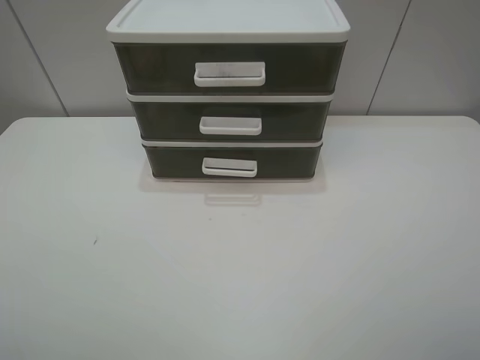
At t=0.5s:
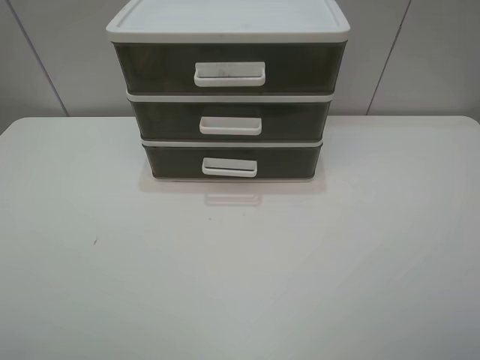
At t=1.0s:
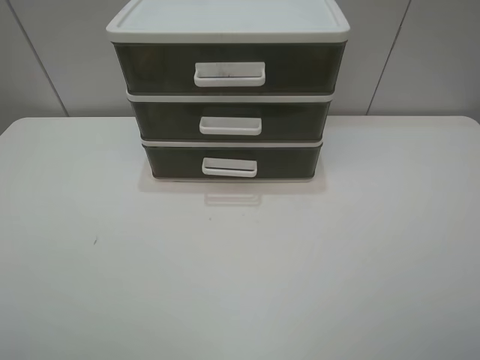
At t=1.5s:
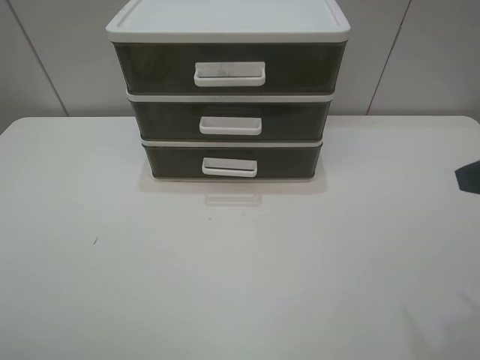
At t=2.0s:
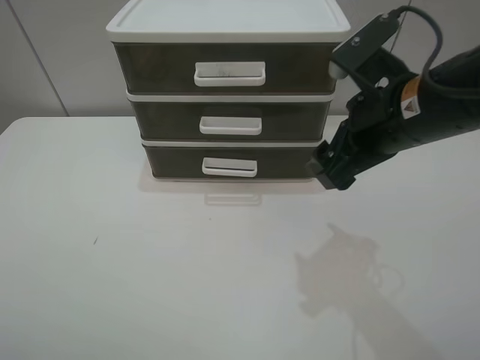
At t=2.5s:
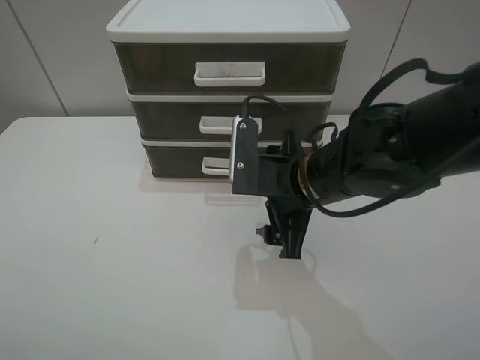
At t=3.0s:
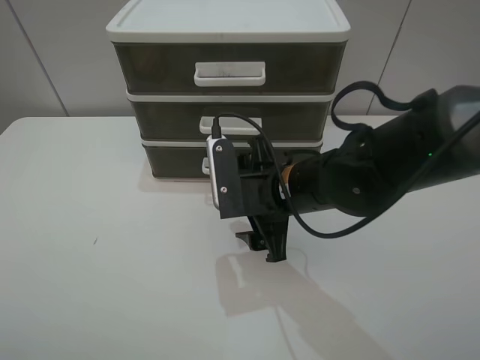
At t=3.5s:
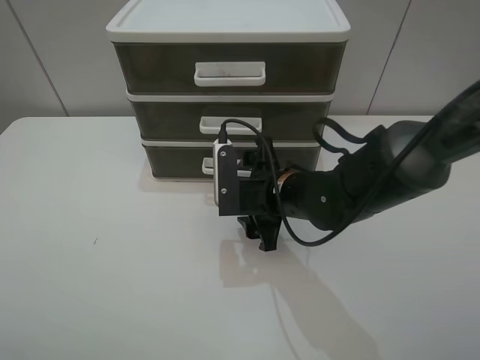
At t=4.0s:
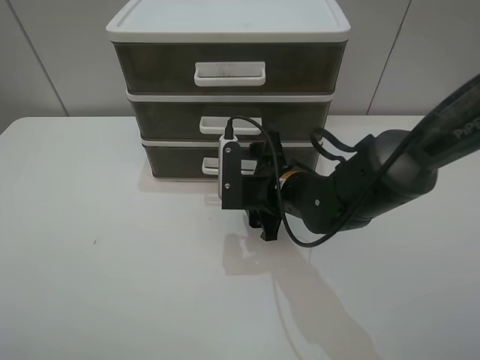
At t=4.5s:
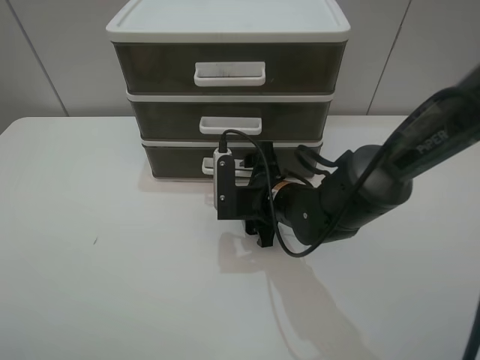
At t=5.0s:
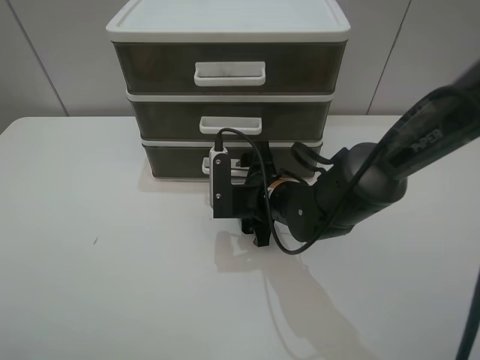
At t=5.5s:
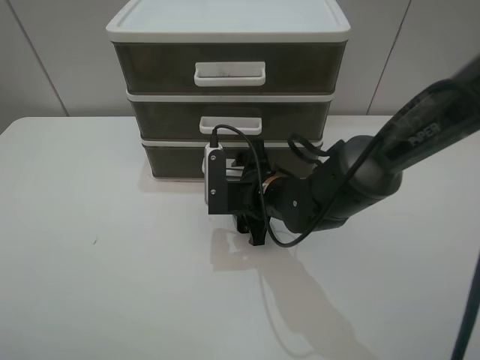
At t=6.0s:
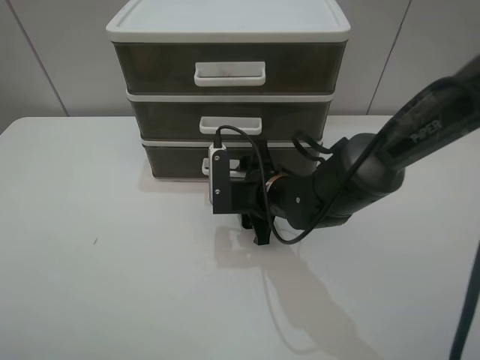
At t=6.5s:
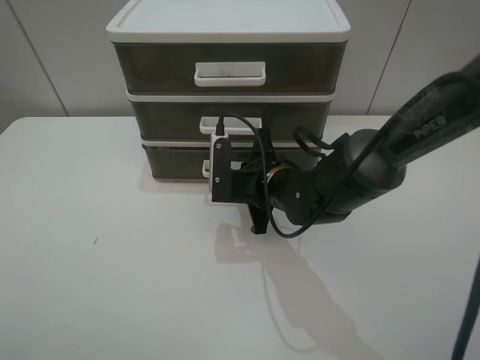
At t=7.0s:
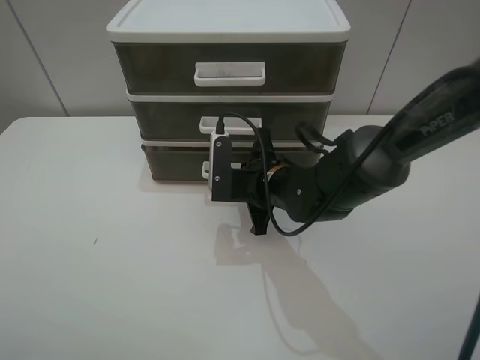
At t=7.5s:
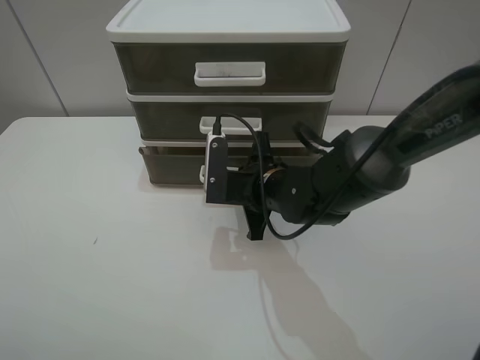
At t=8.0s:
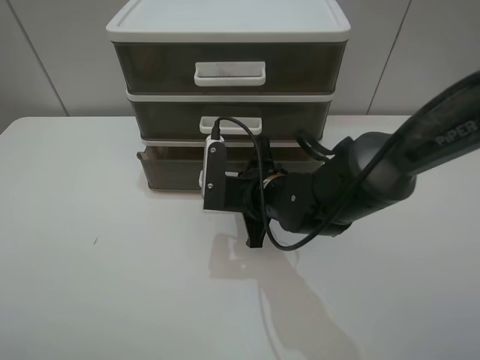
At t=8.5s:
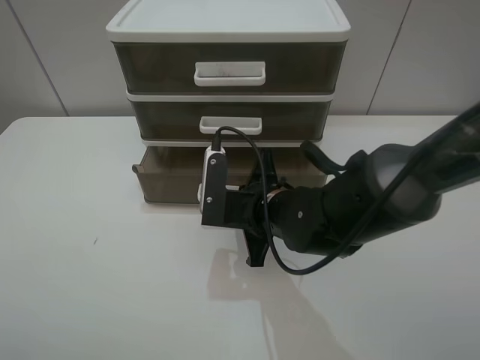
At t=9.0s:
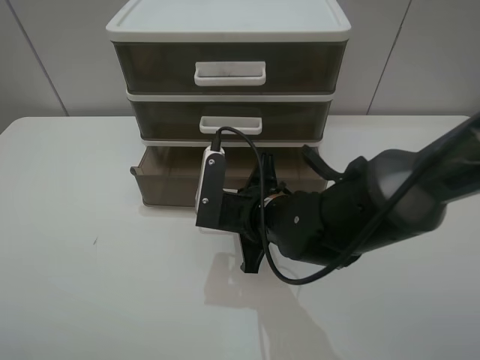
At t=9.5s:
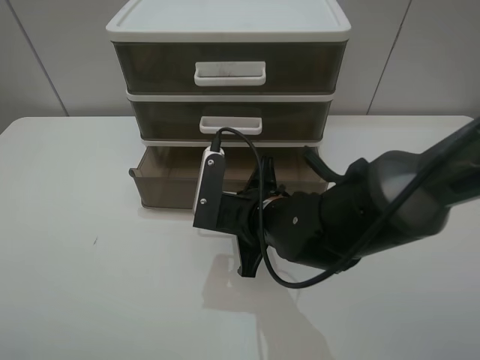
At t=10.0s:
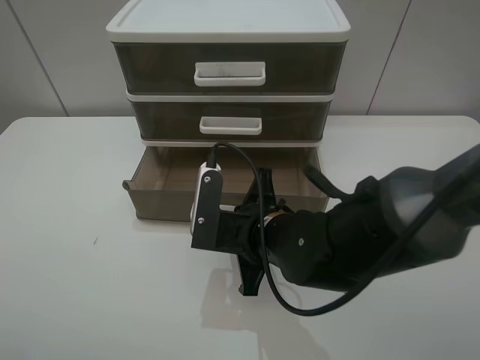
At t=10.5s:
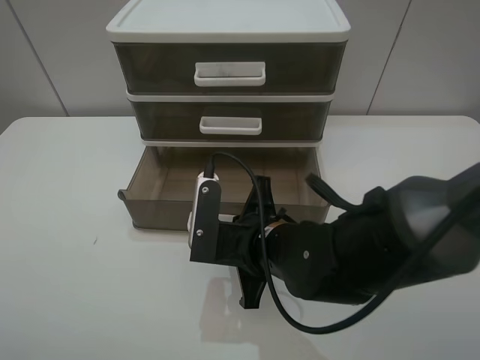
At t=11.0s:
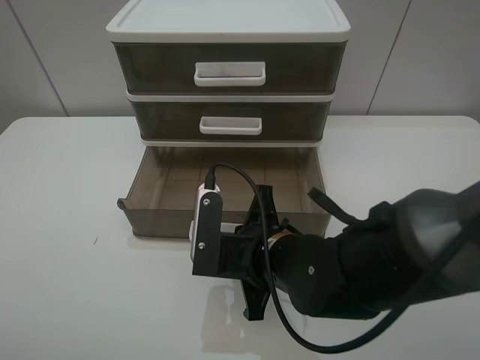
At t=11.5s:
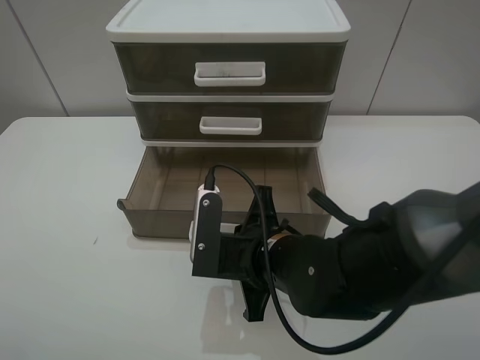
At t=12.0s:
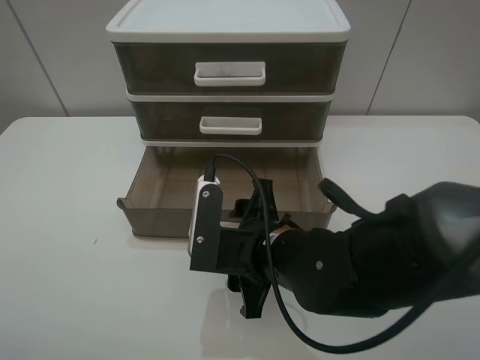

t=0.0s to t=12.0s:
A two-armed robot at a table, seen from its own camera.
Task of the whole recording: open the bottom drawer.
Step, t=0.0s to t=6.5s: Grab the bottom drawer with the right gripper.
Step, t=7.0s to t=12.0s: Pull open the drawer with the right gripper.
t=0.0s to t=2.0s: The right gripper heads forward and to the left, covering roughly 30 cm.
t=2.0s to t=4.0s: The right gripper is displaced downward and to the left by some 15 cm.
t=4.0s to t=6.0s: The grippers stay close to where they were, moving slightly.
t=6.0s to t=8.0s: The right gripper closes.
t=8.0s to t=10.0s: The right gripper goes approximately 5 cm backward.
t=10.0s to t=12.0s: The right gripper opens.

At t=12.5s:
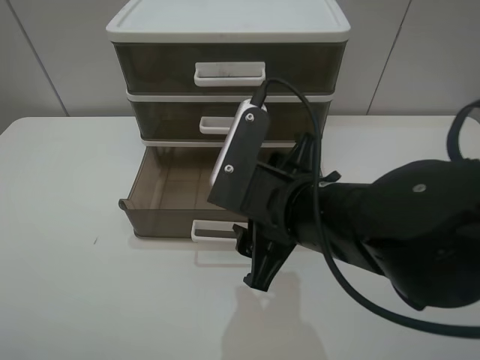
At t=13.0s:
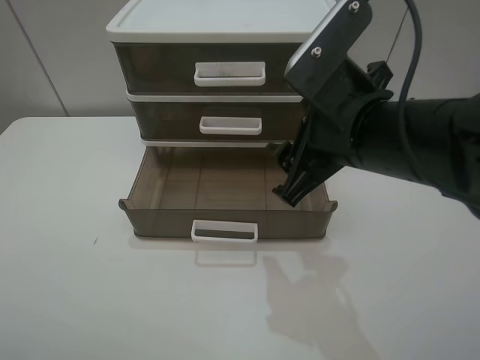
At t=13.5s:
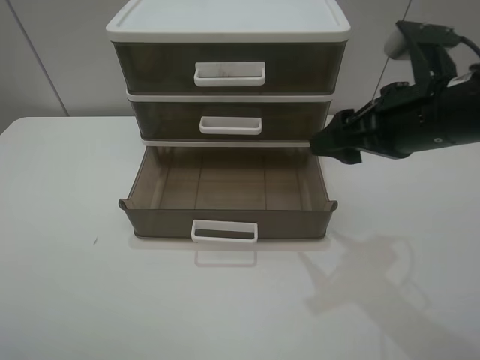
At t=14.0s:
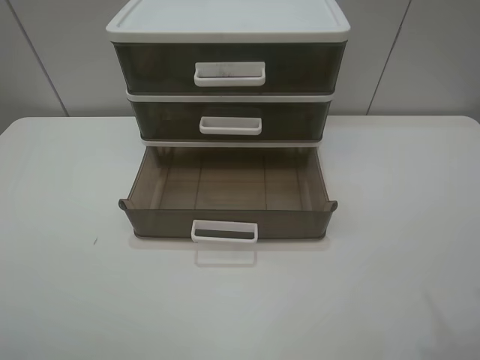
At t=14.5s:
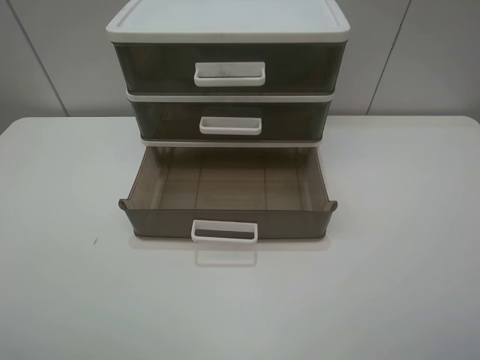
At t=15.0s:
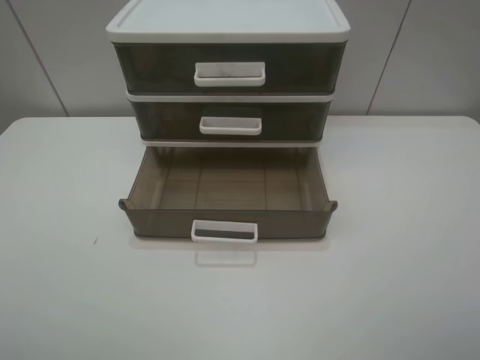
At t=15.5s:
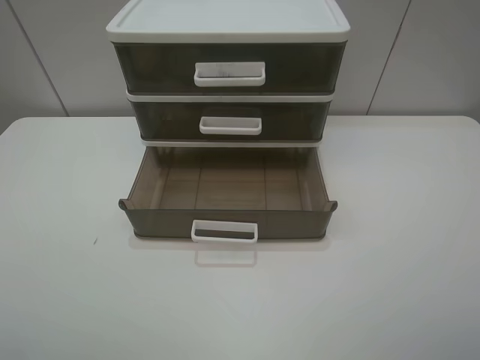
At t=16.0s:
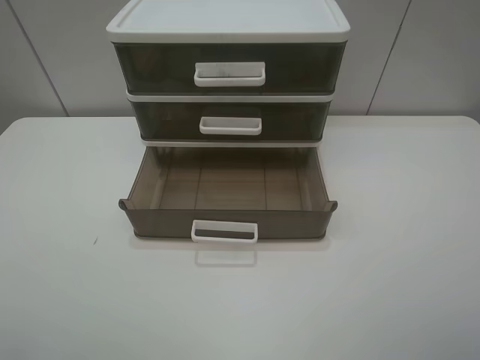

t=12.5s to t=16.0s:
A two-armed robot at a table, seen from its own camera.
Task of the whole recording: open the bottom drawer.
t=12.5s to t=14.5s: The right gripper heads to the right, backward and upward, covering roughly 35 cm.

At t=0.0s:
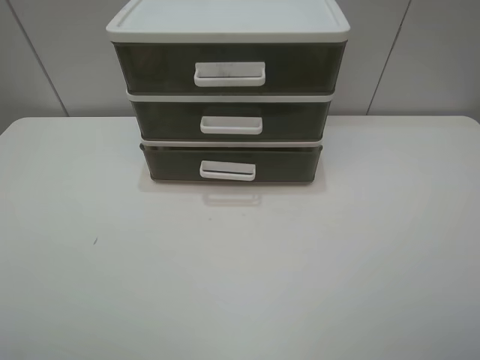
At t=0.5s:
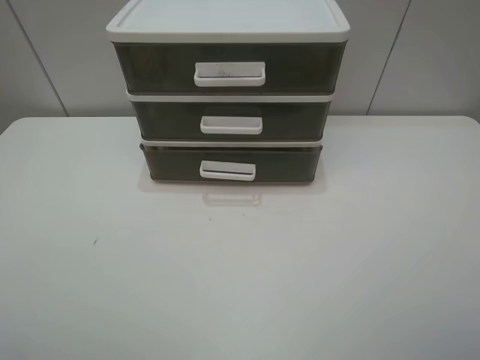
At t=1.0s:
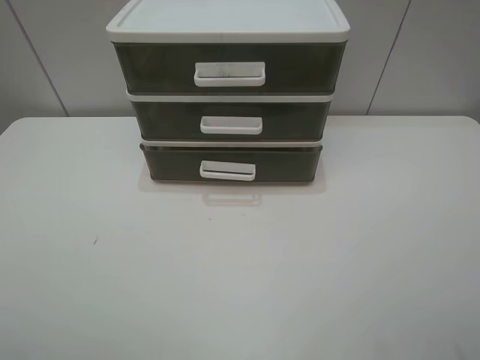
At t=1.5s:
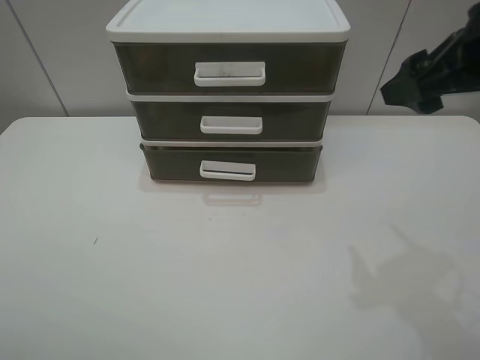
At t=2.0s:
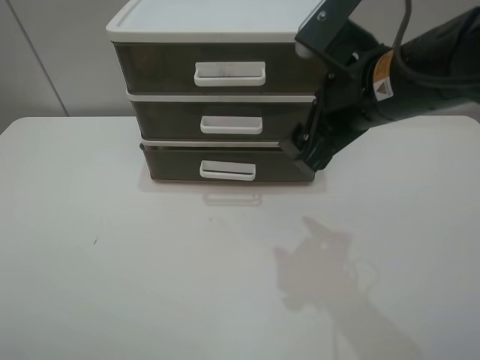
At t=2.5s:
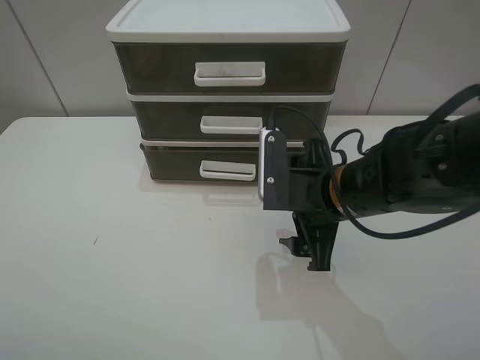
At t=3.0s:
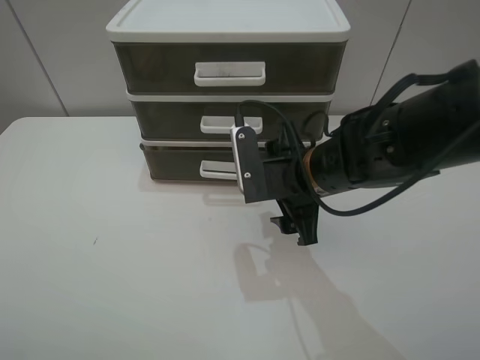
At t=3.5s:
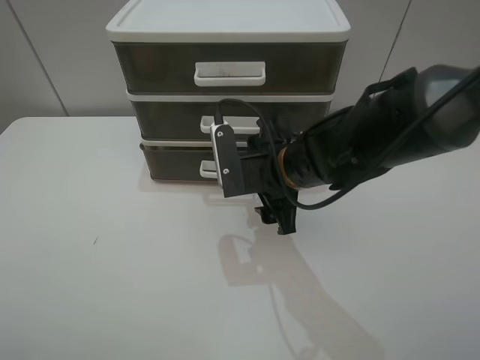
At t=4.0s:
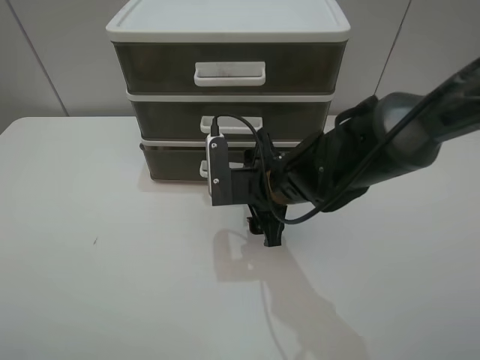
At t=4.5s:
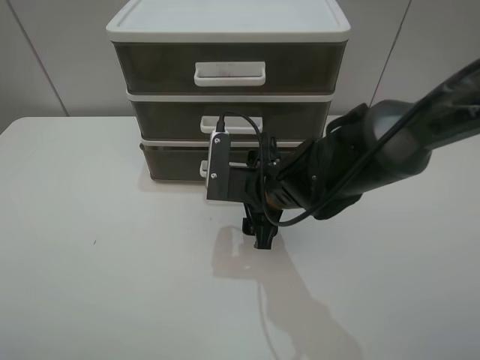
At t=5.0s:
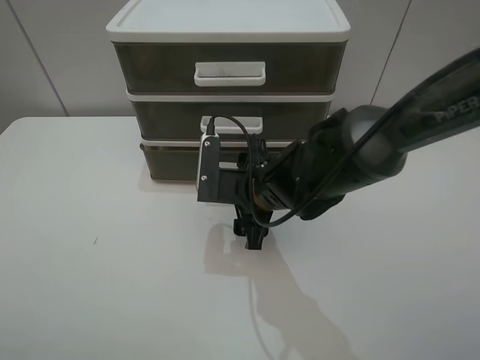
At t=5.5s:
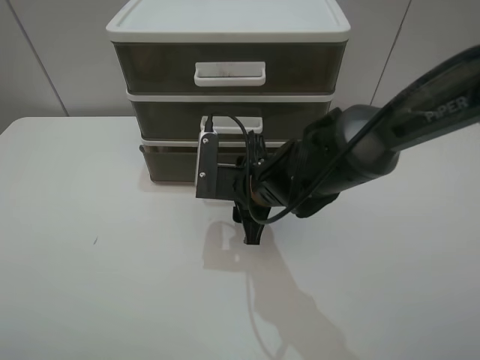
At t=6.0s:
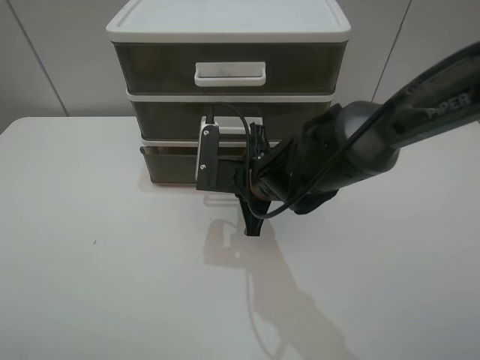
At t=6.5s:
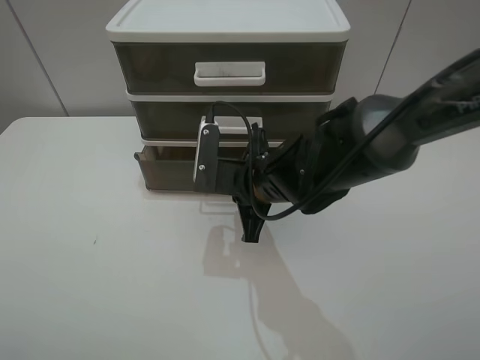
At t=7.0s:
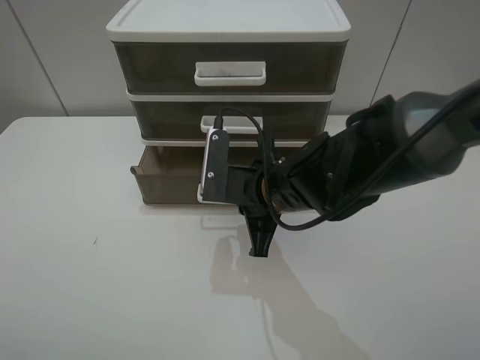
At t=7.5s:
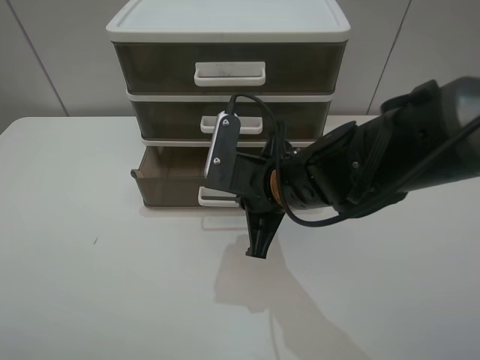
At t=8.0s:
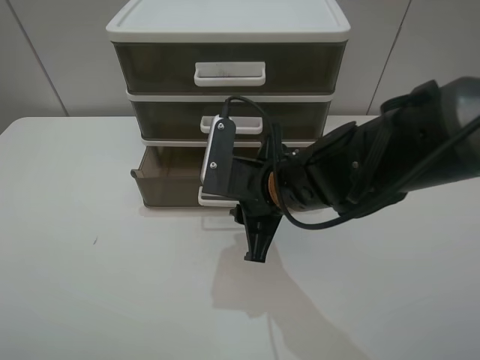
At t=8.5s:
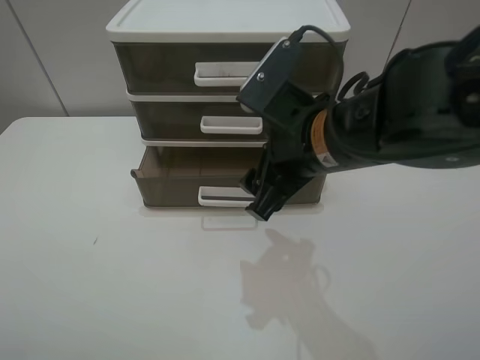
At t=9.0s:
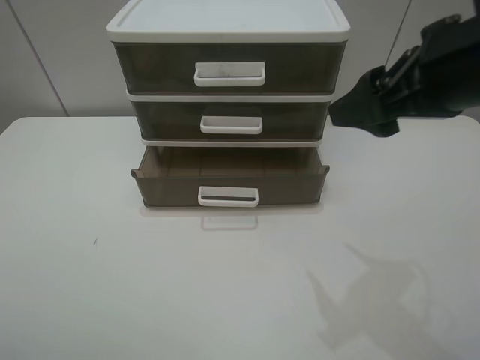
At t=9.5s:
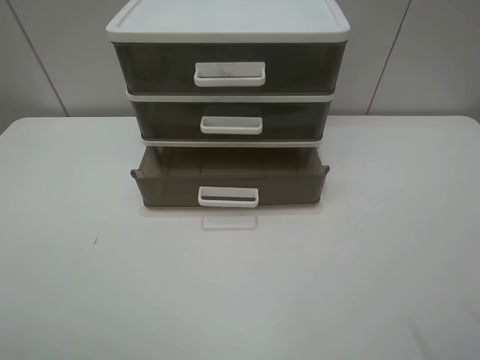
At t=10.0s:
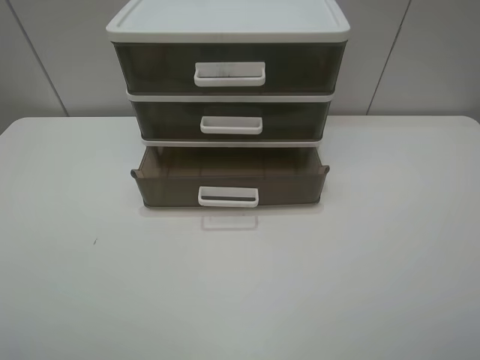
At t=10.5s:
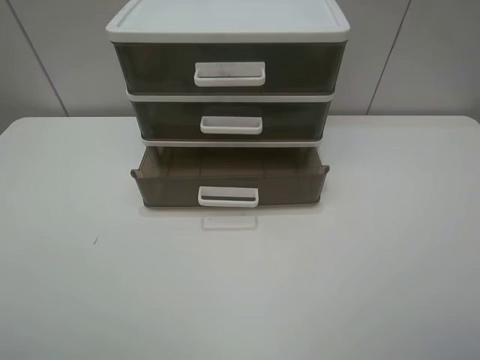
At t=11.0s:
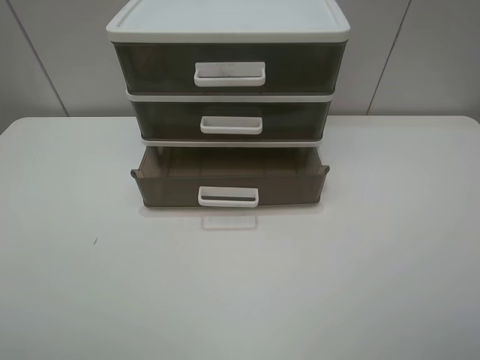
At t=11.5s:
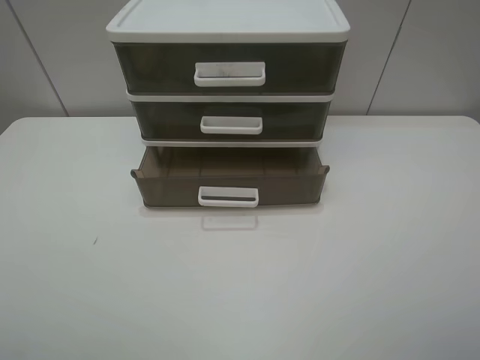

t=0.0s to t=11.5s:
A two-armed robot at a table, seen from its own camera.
Task of the whole recording: open the bottom drawer.
Step, t=0.0s to t=6.0s: Grab the bottom drawer with the right gripper.
Step, t=6.5s to t=8.0s: Pull open the drawer with the right gripper.
t=0.0s to t=2.0s: The right gripper is displaced forward and to the left by some 30 cm.
t=2.0s to t=4.0s: The right gripper shifts approximately 15 cm downward and to the left.
t=4.0s to t=6.0s: The right gripper closes its fingers.
t=6.0s to t=7.5s: The right gripper moves approximately 5 cm.
t=7.5s to t=9.5s: The right gripper moves to the right, upward and backward, about 35 cm, and opens its fingers.
